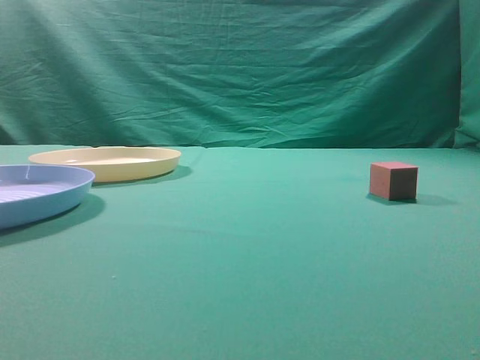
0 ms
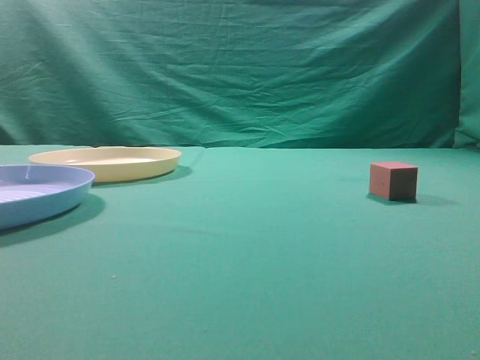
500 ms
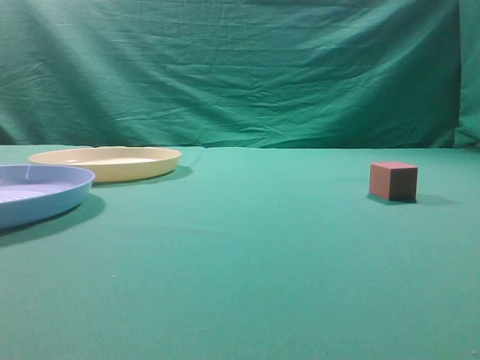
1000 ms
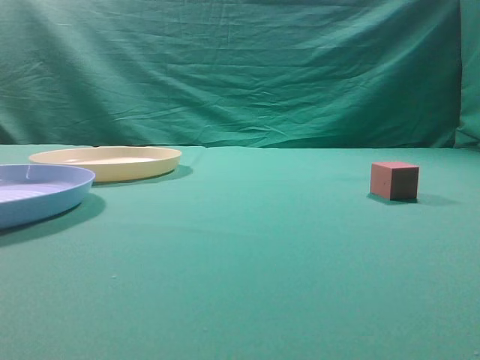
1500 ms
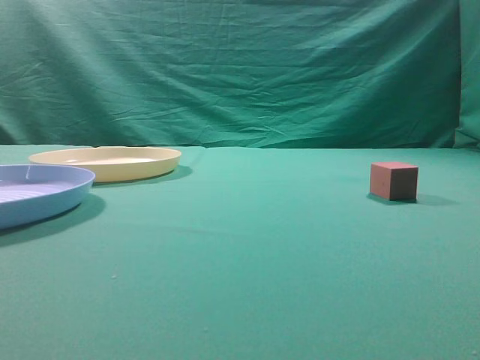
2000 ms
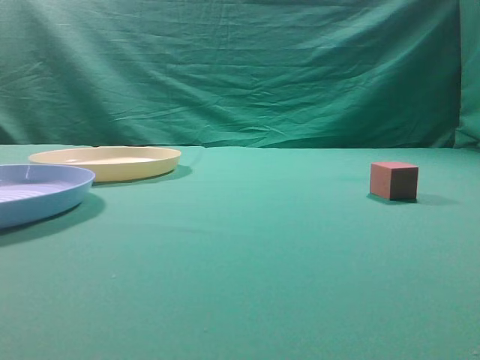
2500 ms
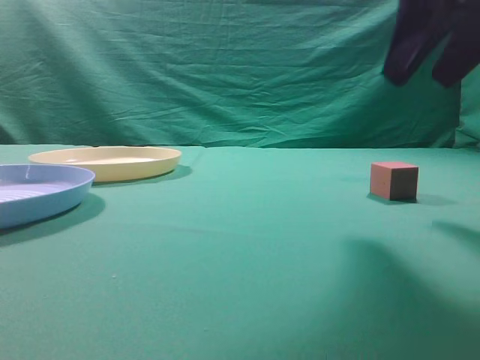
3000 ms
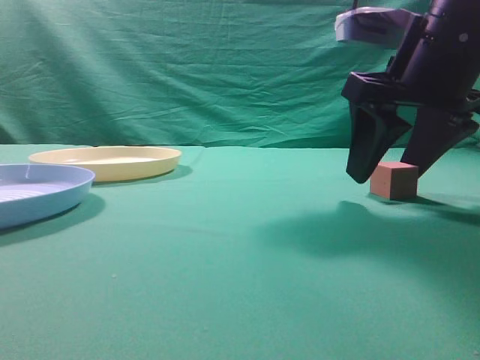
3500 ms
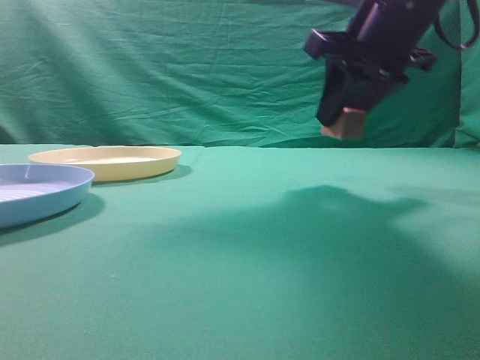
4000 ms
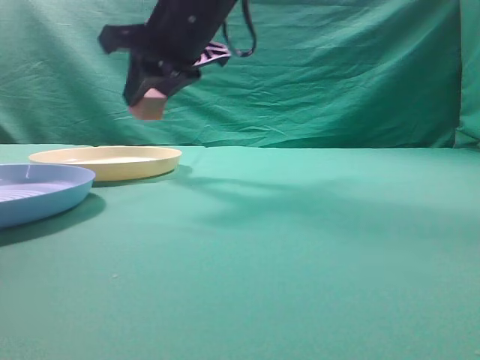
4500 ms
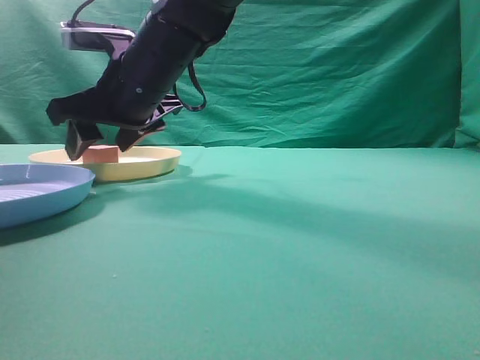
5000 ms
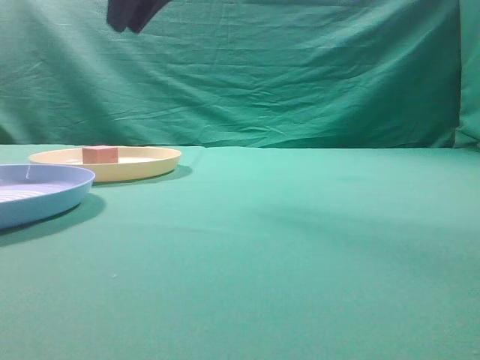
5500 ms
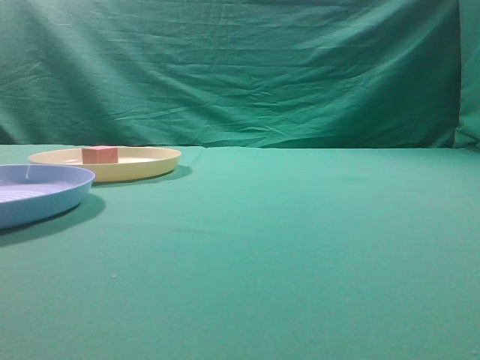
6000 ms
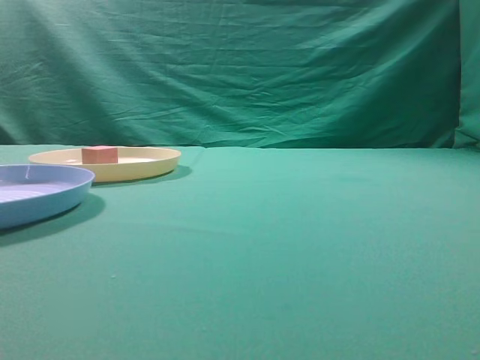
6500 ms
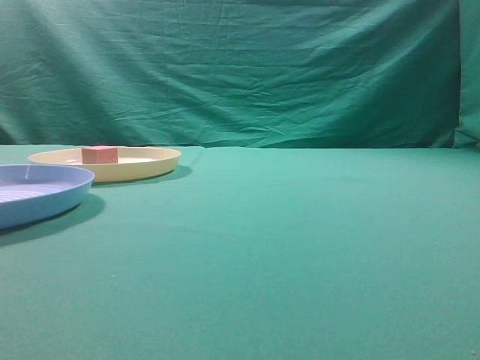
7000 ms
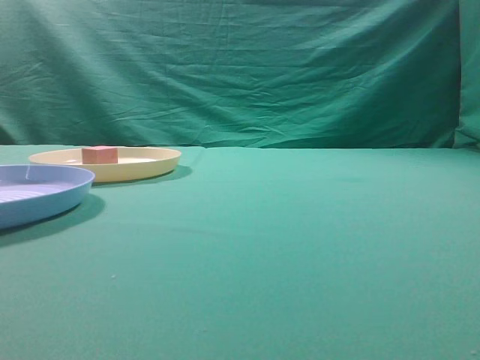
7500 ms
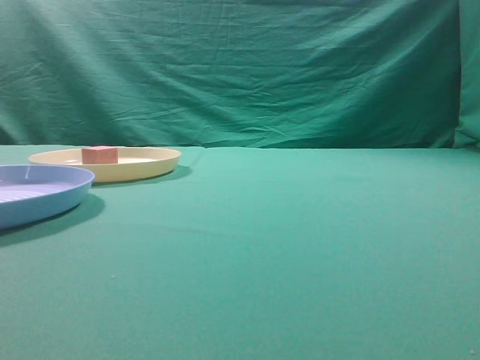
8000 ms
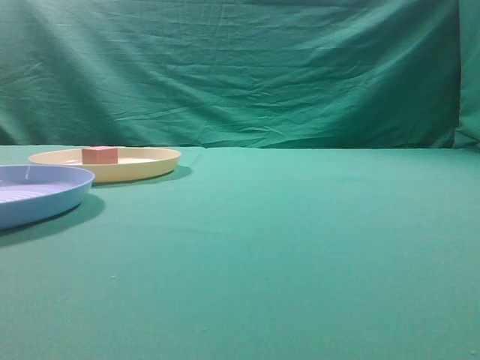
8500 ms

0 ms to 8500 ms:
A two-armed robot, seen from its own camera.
Task of the whole recording: pick up the cube block from the table and put it on the plate.
Step, 0 ms to 3500 ms: Grasp the small cube on the table.
Step, 4000 ms to 5000 ms: Place it into the yellow plate.
2000 ms to 4000 ms: The right gripper is displaced forward and to the left by roughly 30 cm, and opens its fingers.
4000 ms to 6500 ms: The right gripper heads backward and upward, covering about 20 cm, moves some 20 cm to the left and comes back, and closes up.
